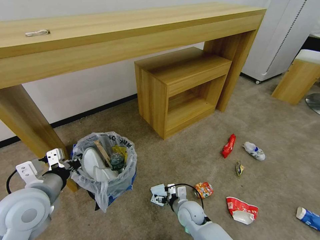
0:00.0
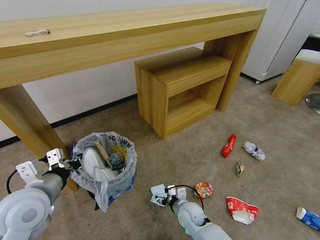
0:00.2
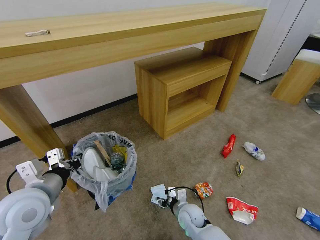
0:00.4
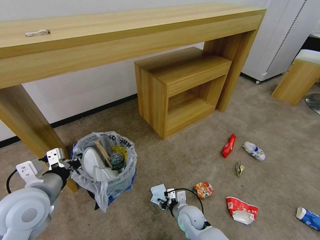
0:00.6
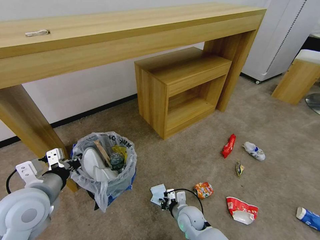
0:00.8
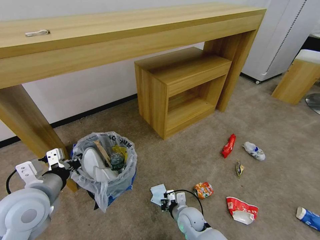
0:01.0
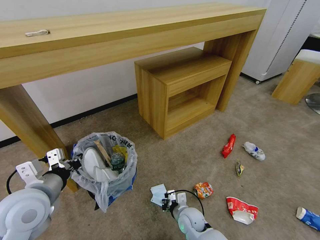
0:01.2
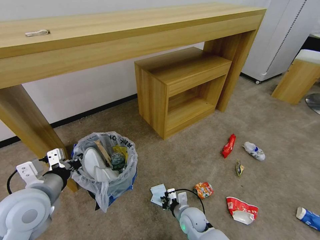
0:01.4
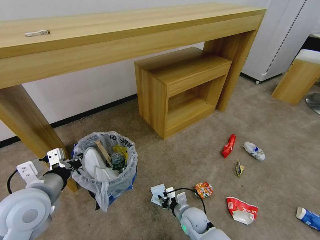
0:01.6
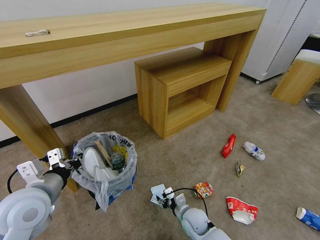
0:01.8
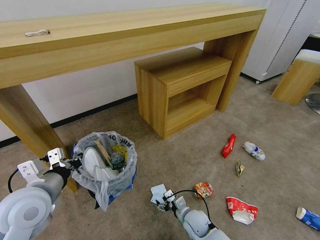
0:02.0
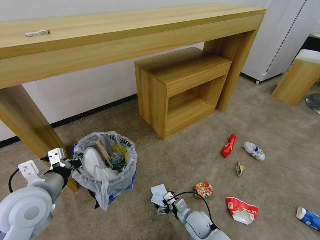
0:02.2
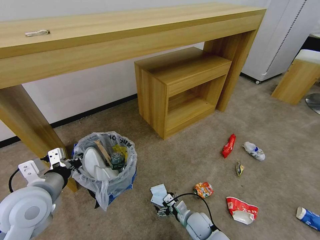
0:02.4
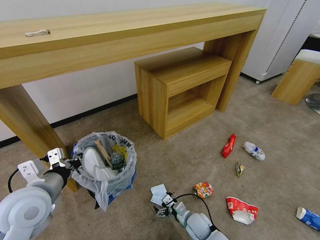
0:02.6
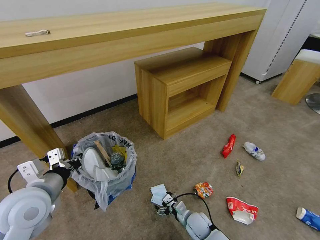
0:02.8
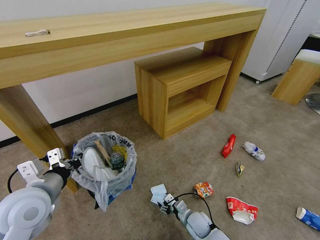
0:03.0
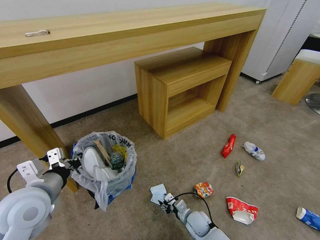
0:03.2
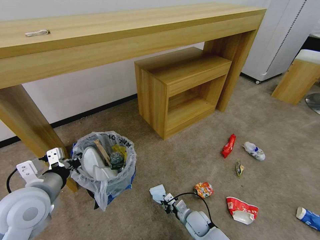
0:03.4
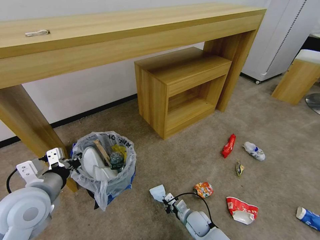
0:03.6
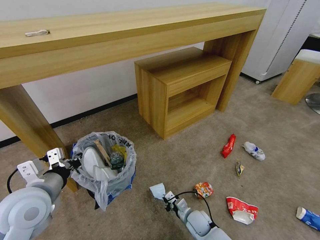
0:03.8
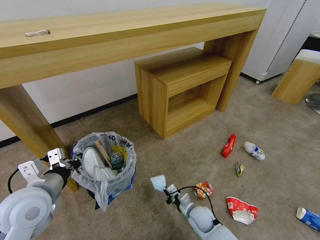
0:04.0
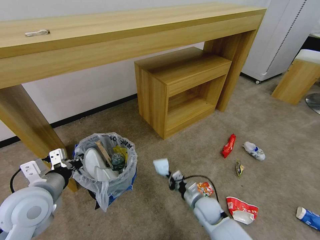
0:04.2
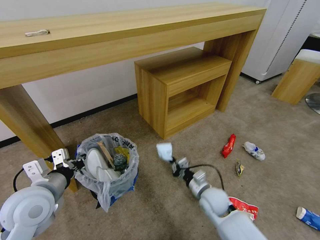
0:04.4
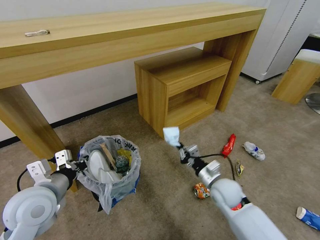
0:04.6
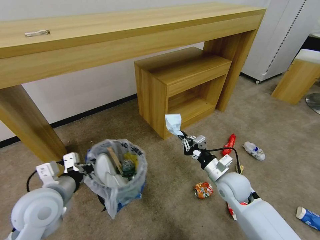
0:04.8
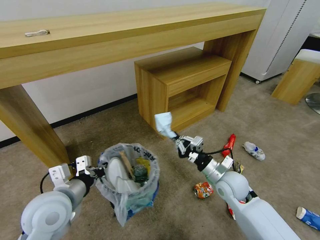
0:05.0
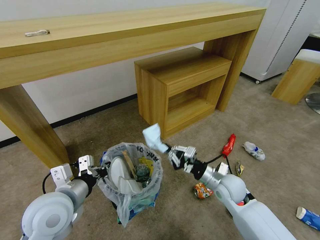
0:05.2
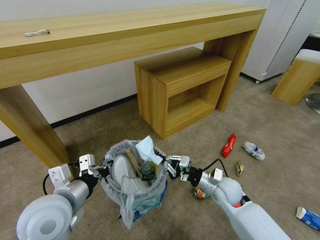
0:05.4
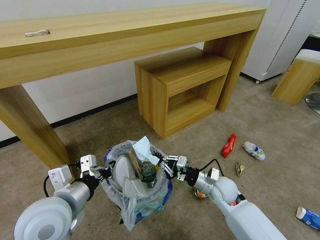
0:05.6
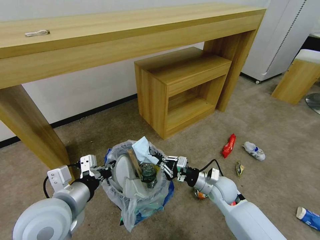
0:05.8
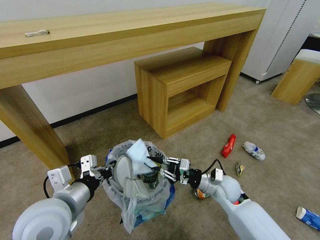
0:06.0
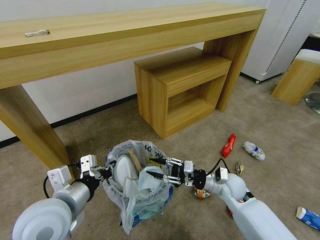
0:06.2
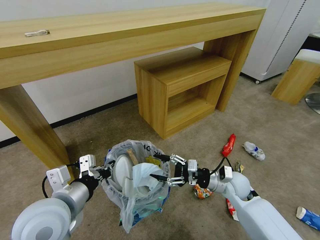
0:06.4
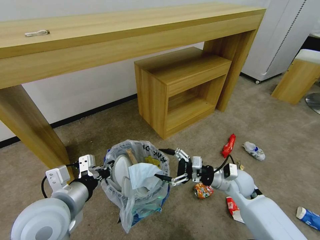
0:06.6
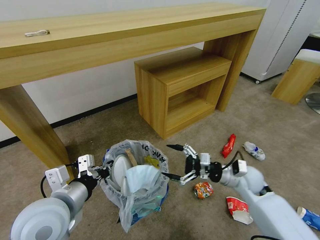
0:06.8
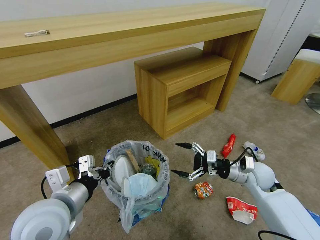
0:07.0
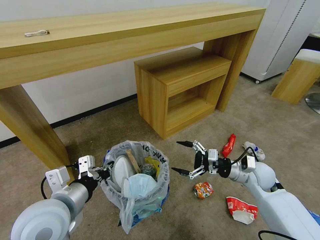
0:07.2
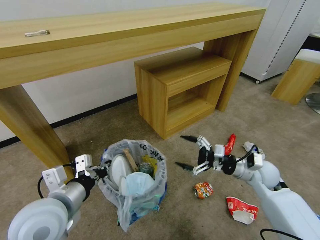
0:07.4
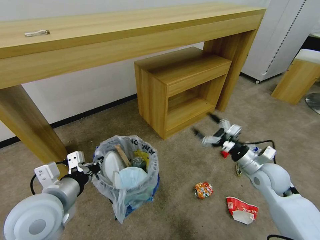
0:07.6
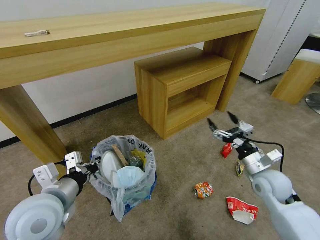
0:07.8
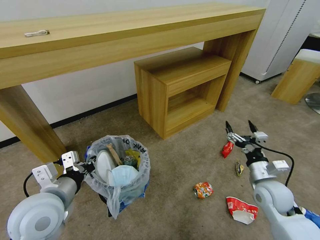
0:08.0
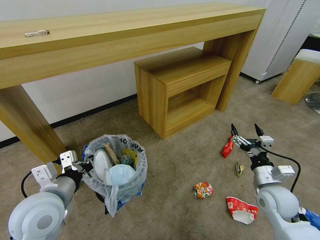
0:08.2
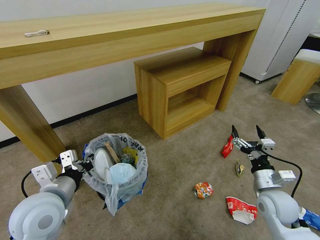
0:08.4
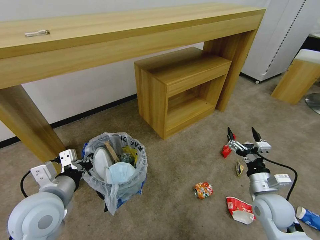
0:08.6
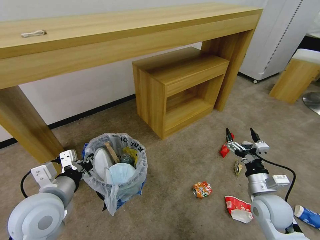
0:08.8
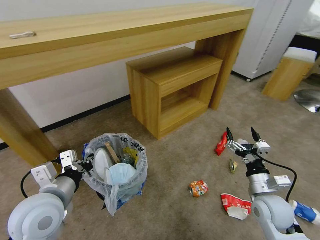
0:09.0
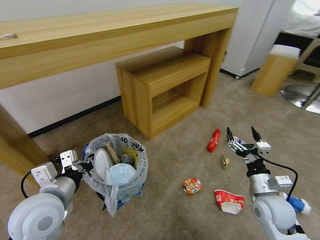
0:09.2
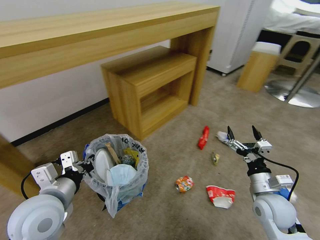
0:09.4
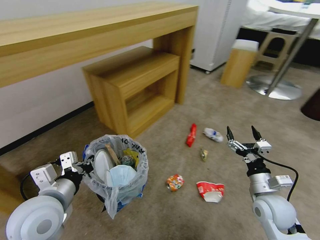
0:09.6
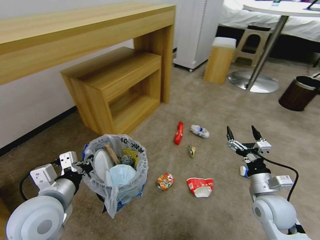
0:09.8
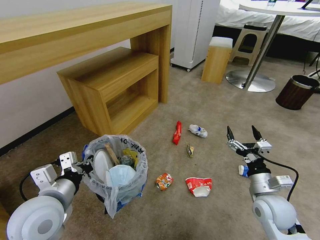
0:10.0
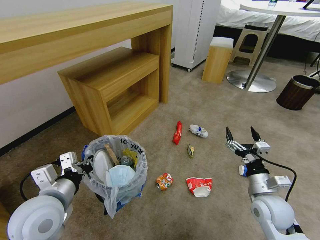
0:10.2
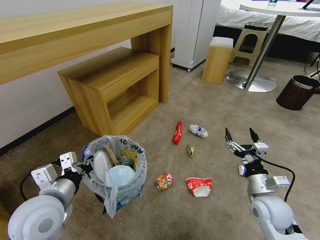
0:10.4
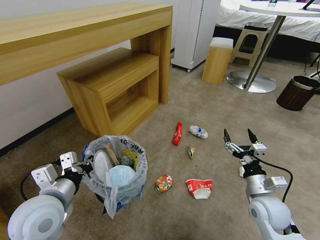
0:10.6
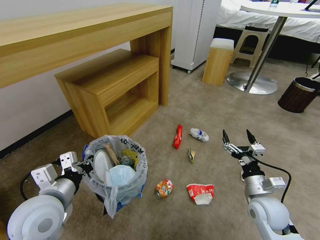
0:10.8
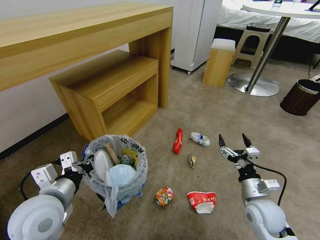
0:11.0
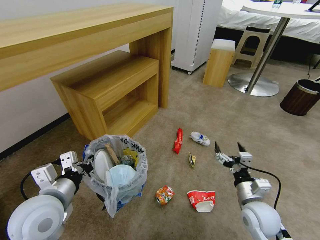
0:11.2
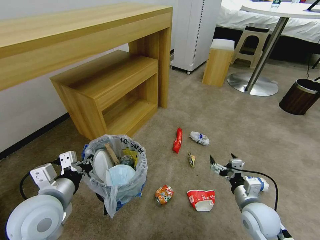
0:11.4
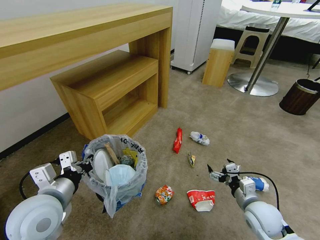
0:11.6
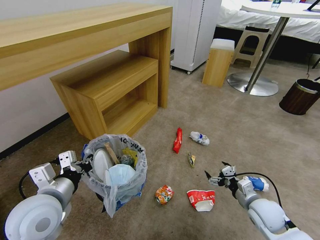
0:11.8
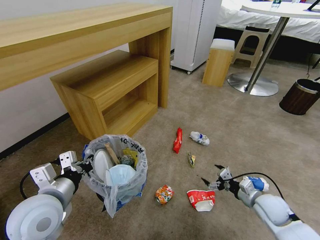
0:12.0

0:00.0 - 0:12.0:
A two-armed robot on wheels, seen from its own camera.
Task of the whole recording: Pick up the trash bin and place the garbage on the floor into it.
0:00.0 - 0:01.6: The right gripper closes its fingers.
0:01.6 - 0:03.0: The right gripper ends up about 5 cm from where it was, and opens.
0:03.0 - 0:04.4: The right gripper travels upward by some 15 cm, and closes.
0:04.4 - 0:06.0: The left gripper goes about 5 cm to the right.
0:06.0 - 0:07.6: The right gripper is displaced to the right and upward by approximately 15 cm, and opens up.
0:07.6 - 0:09.0: The right gripper travels backward by about 10 cm.
0:10.4 - 0:12.0: The right gripper goes roughly 10 cm downward and to the right.

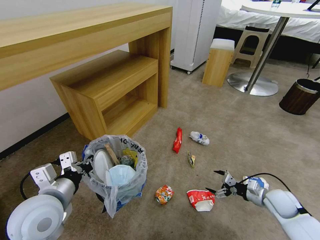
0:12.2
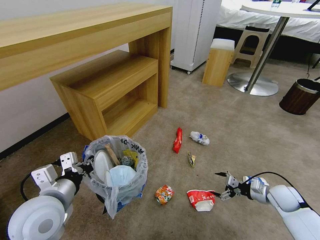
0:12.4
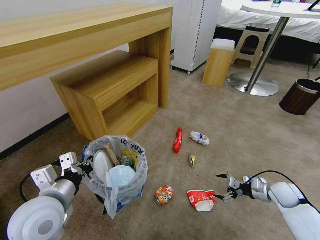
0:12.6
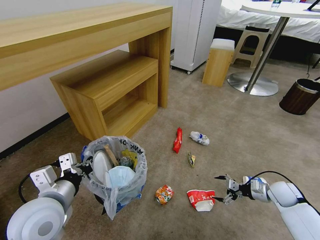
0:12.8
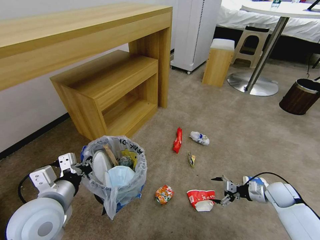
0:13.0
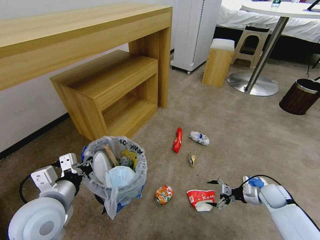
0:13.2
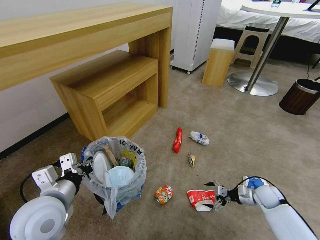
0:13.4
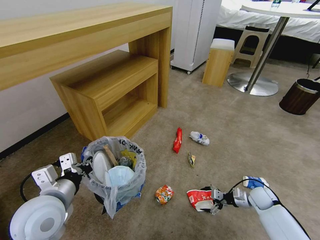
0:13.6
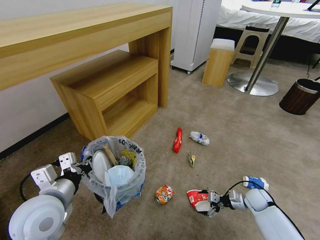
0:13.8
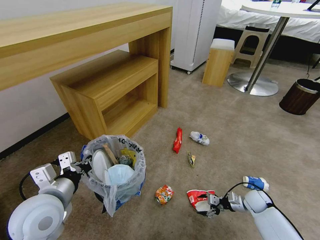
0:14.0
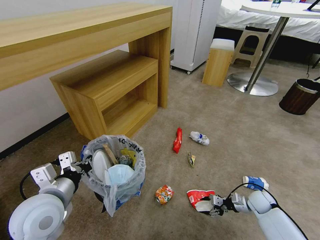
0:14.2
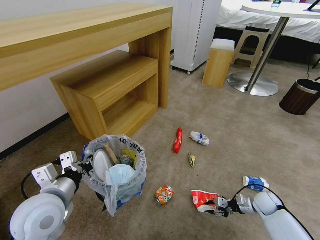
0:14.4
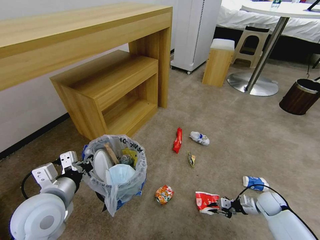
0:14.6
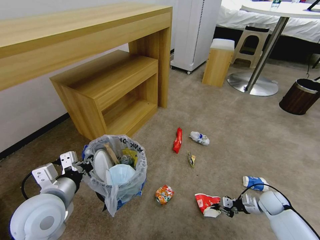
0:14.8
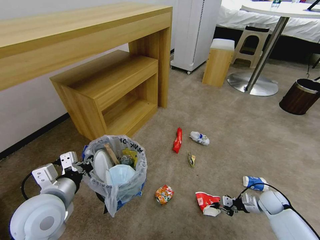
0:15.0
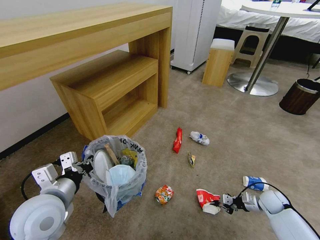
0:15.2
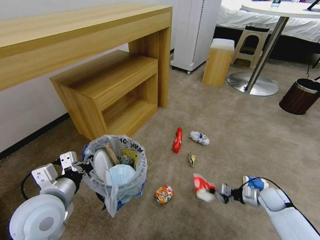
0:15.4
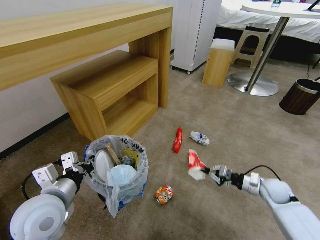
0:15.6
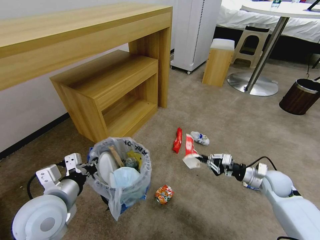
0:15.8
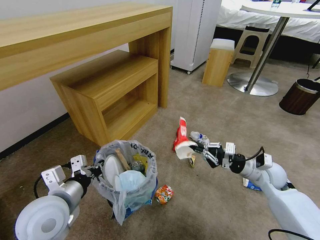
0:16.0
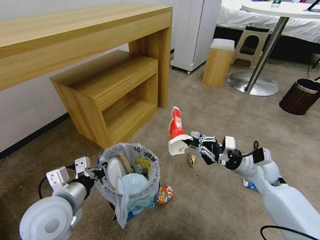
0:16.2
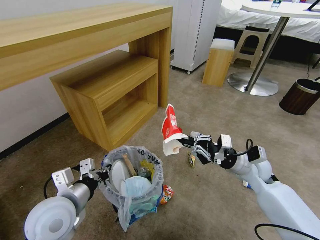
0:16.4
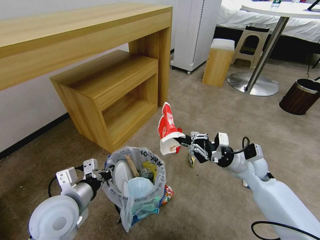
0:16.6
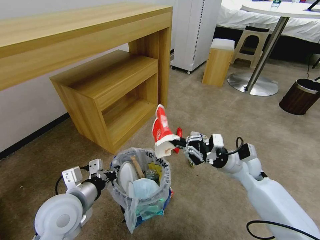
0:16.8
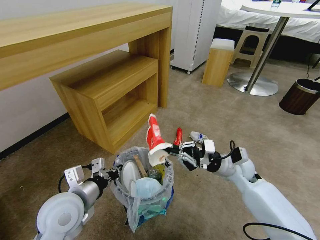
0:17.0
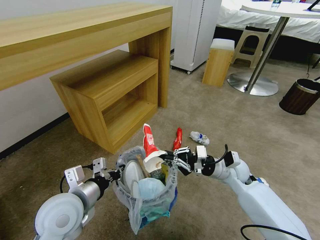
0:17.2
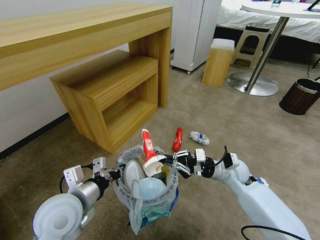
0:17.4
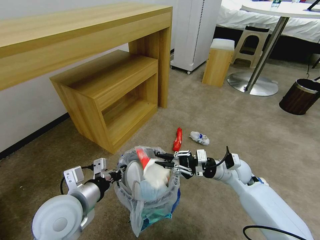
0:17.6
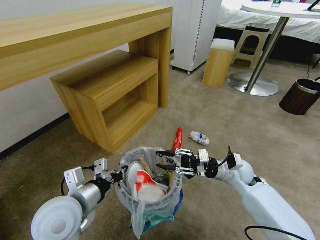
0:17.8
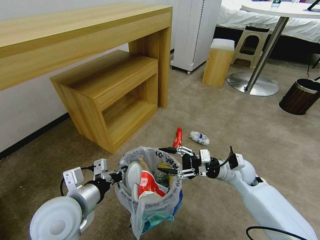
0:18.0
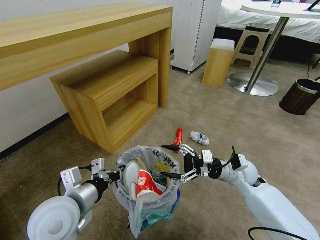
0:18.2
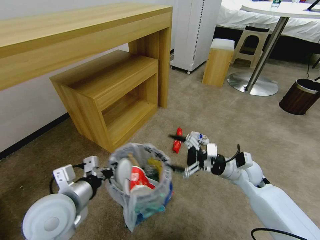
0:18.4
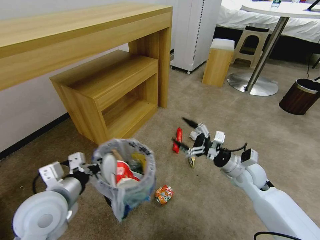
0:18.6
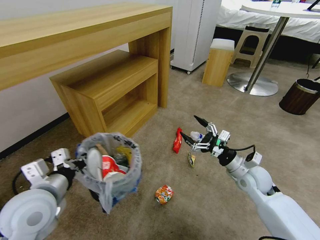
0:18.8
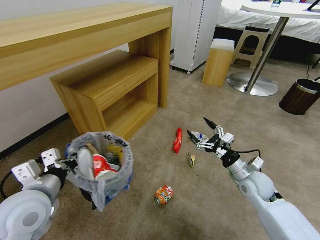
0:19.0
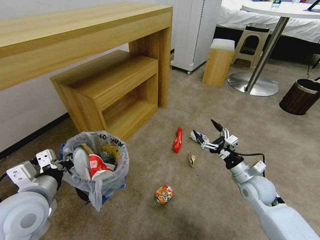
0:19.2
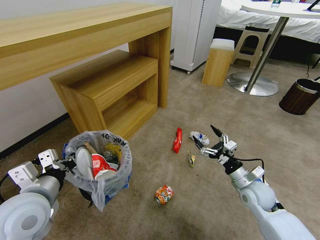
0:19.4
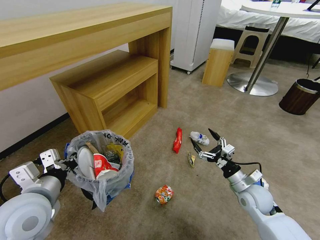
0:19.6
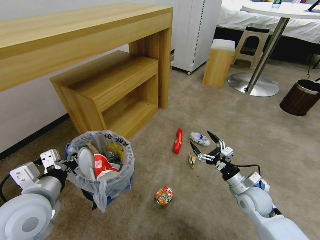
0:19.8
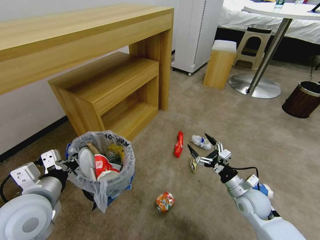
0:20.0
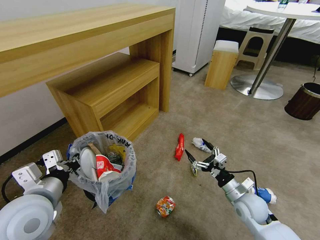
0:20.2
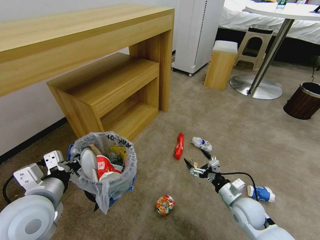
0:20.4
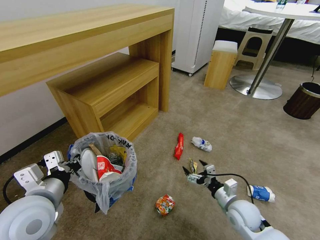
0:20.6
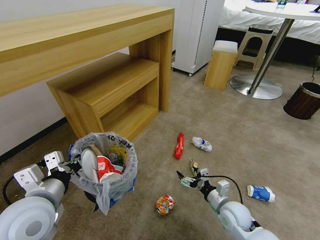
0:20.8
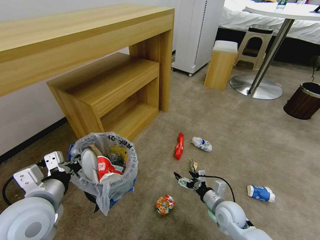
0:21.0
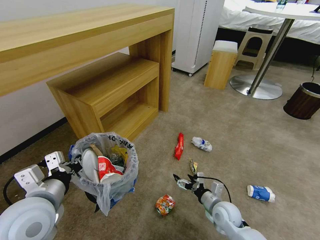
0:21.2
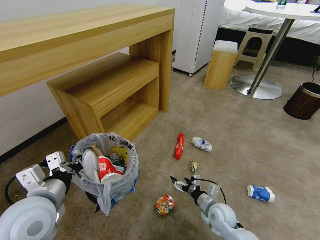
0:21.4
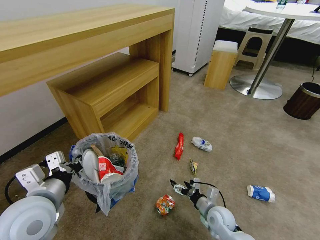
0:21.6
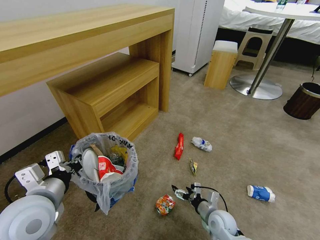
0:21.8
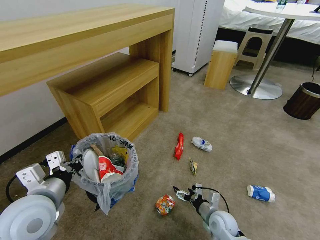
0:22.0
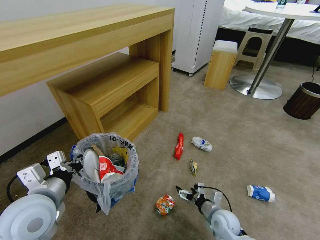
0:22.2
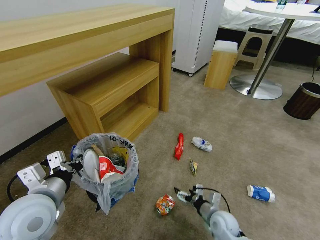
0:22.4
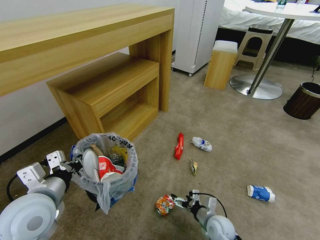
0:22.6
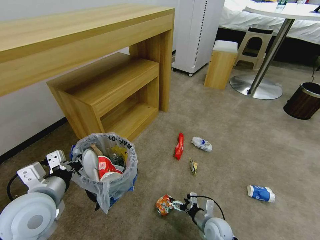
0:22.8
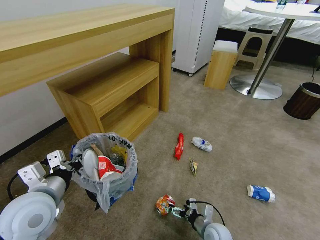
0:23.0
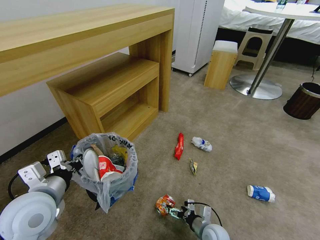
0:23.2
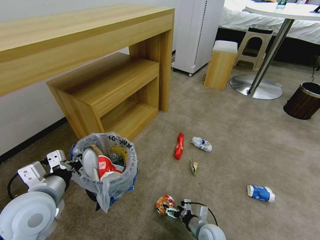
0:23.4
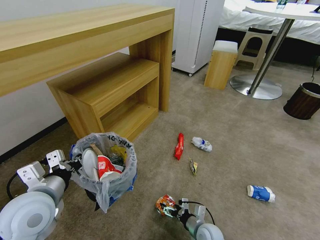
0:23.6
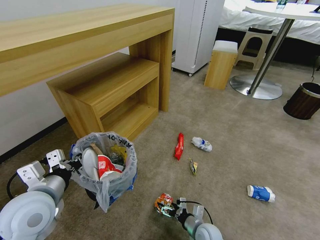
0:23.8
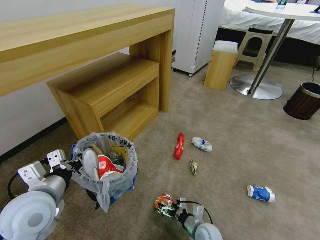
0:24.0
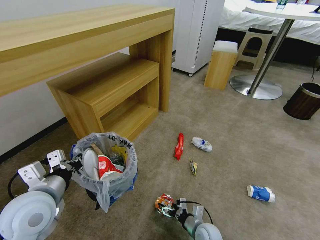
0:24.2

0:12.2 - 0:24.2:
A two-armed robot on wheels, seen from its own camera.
Task of the whole recording: Pick up the trash bin and place the garbage on the floor into it.
0:12.2 - 0:13.8: The right gripper heads downward, covering some 10 cm.
0:13.8 - 0:15.2: The right gripper moves some 5 cm, and closes up.
0:15.2 - 0:16.6: The right gripper shifts about 25 cm upward and to the left.
0:16.6 - 0:18.2: The right gripper opens.
0:18.2 - 0:19.8: The left gripper heads to the left, covering about 5 cm. The right gripper shifts about 10 cm backward and downward.
0:19.8 - 0:21.2: The right gripper heads downward and to the left, covering about 10 cm.
0:21.2 - 0:22.6: The right gripper shifts by about 5 cm.
0:22.6 - 0:24.2: The right gripper moves approximately 5 cm.
